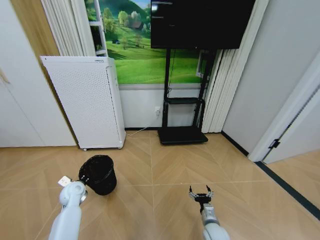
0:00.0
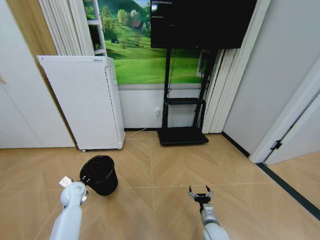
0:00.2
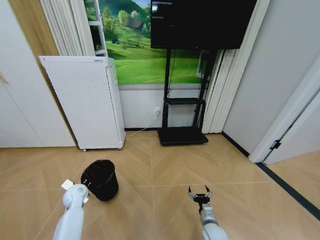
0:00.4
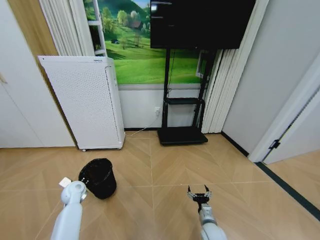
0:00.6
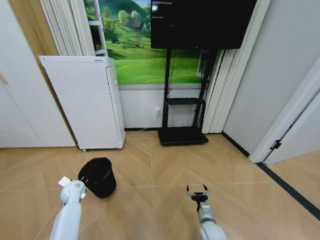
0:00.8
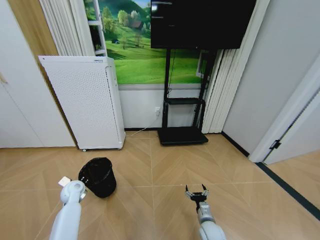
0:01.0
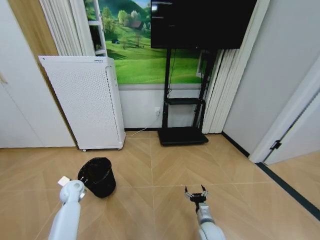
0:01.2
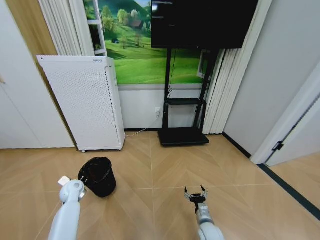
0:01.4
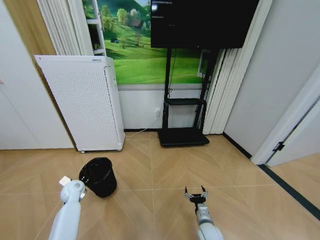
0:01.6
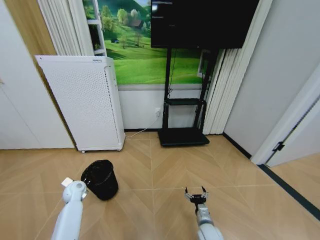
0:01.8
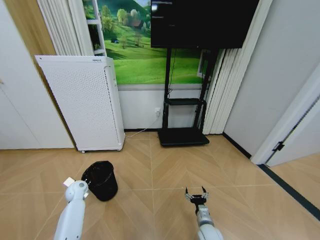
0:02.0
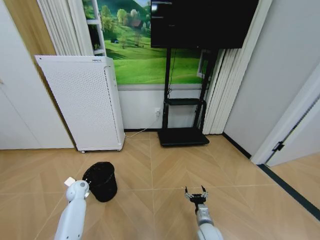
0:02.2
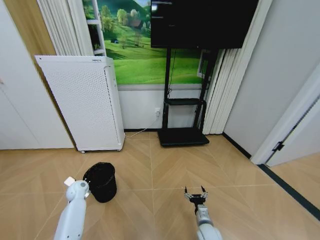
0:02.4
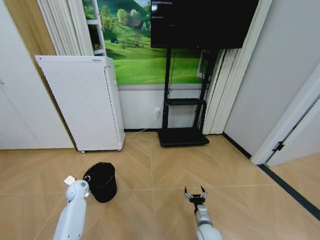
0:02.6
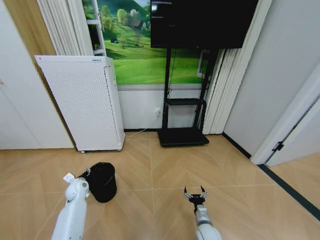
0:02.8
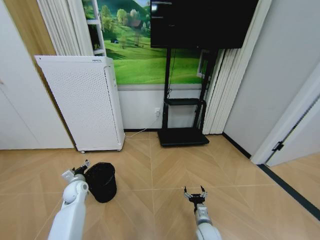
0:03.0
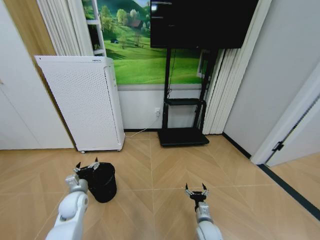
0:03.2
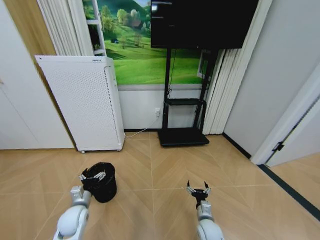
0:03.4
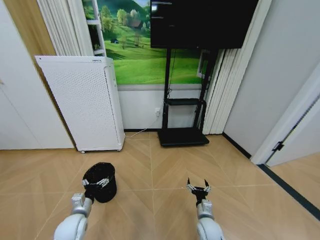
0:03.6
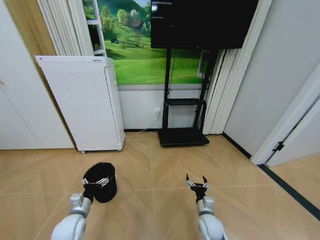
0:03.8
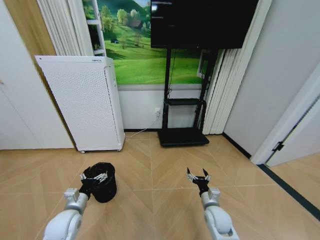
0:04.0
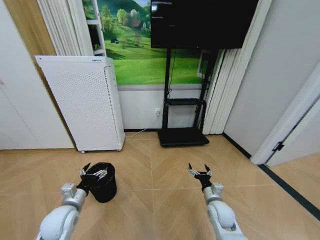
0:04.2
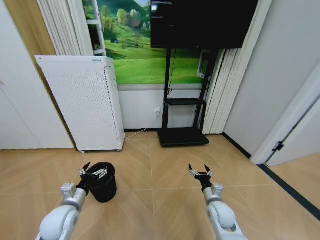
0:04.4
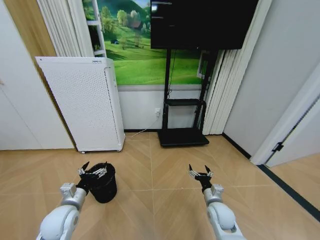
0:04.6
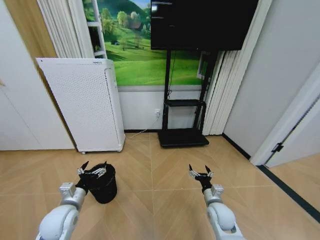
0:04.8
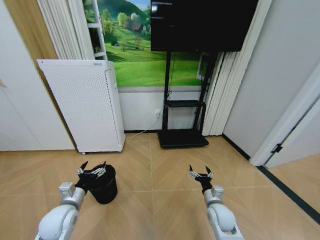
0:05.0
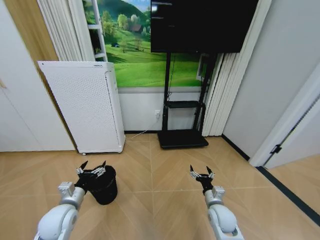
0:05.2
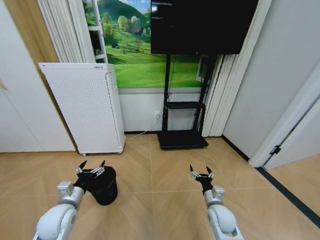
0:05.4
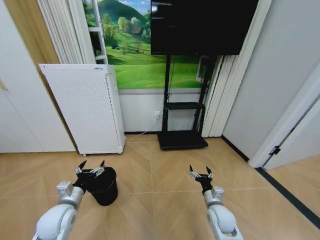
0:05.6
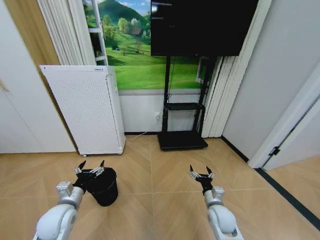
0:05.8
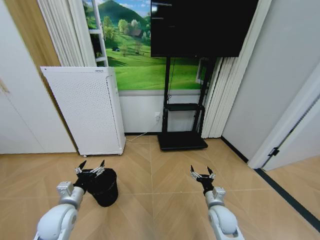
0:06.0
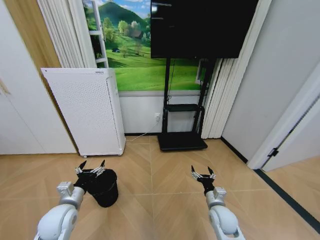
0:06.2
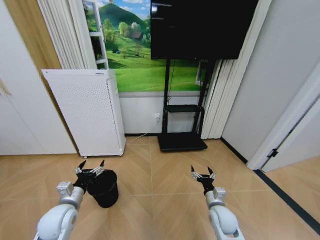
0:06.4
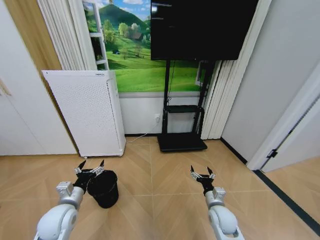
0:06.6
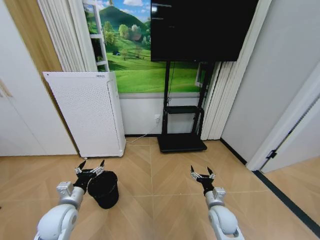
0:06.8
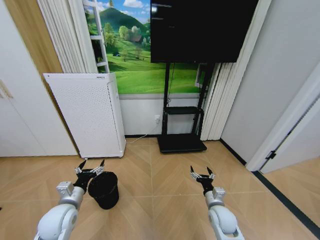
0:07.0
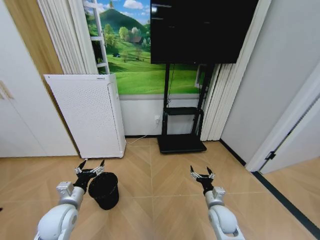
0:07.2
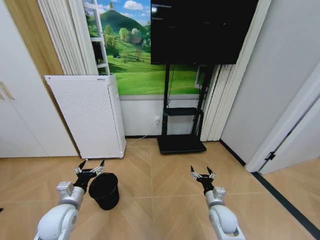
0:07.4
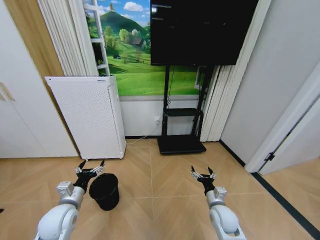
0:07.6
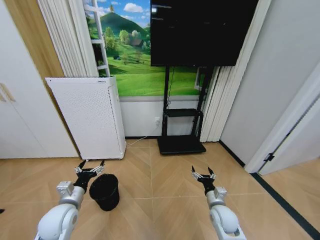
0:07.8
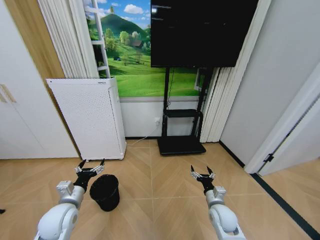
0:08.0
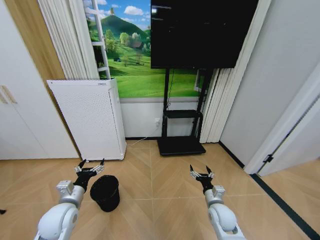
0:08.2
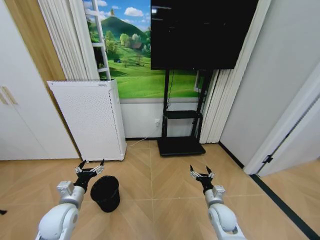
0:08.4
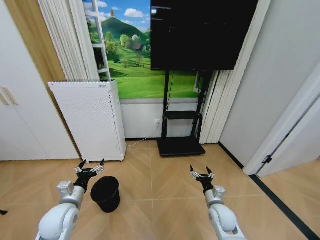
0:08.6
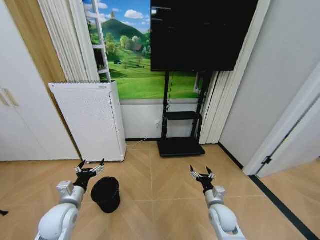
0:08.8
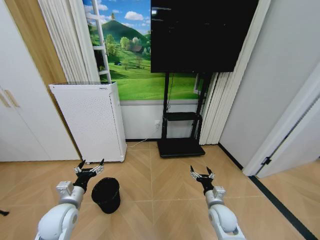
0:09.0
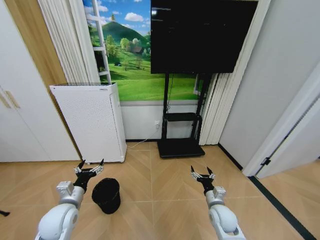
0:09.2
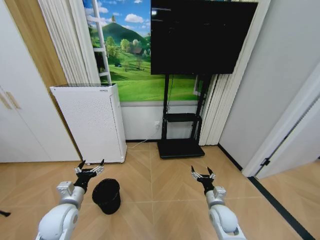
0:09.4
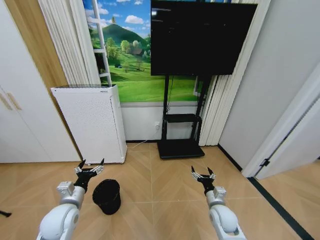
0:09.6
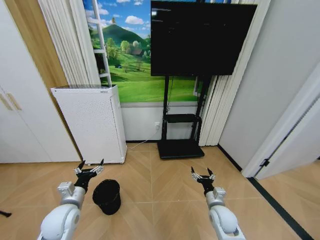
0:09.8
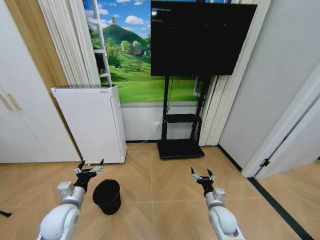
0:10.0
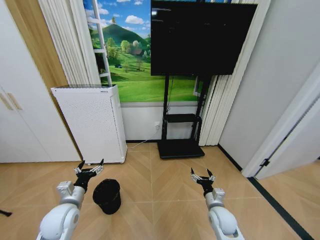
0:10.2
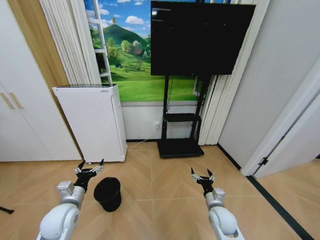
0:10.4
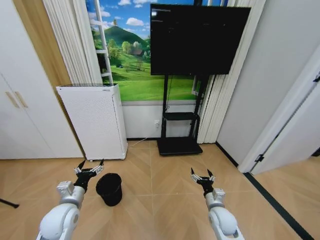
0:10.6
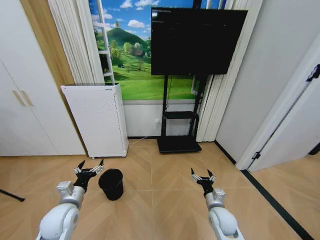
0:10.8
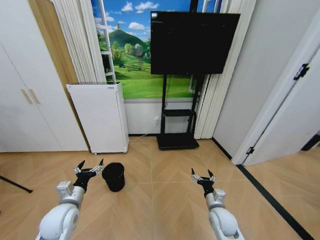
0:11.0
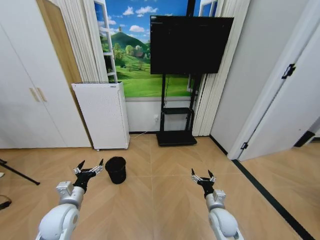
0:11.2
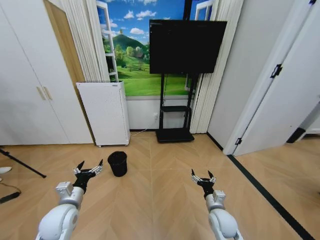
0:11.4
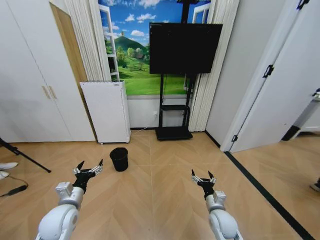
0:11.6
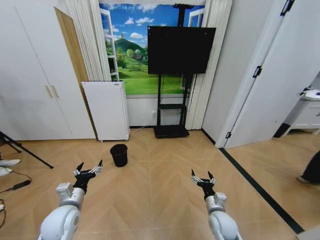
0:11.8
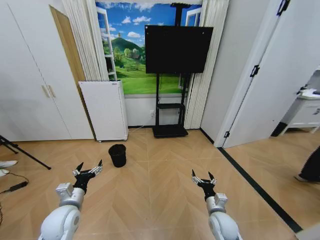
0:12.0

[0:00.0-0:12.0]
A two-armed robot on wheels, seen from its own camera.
Task of the whole recording: Pick up the trash bin and place the garbage on the floor into it.
0:00.0 to 0:01.6: There are only small adjustments of the grippers.
0:01.6 to 0:03.0: The left gripper opens up.
0:03.0 to 0:04.4: The left gripper shifts some 15 cm backward and upward. Meanwhile the right gripper travels upward and forward by roughly 10 cm.
0:04.4 to 0:06.0: The grippers stay close to where they were, moving slightly.
0:06.0 to 0:09.0: Neither gripper changes place.
0:09.0 to 0:10.4: Both grippers stay put.

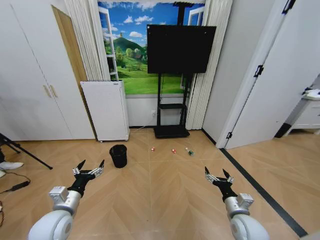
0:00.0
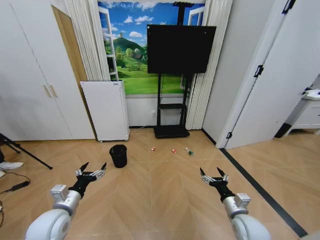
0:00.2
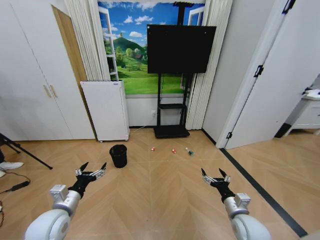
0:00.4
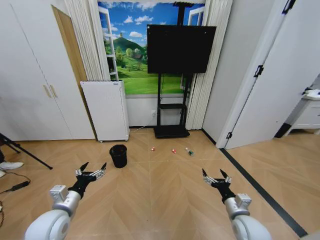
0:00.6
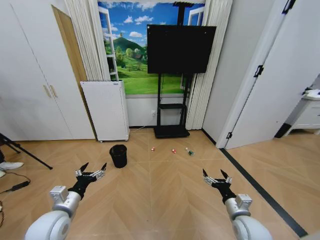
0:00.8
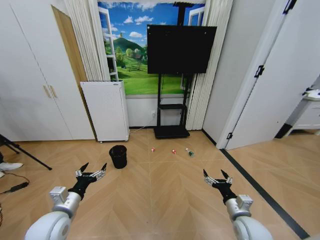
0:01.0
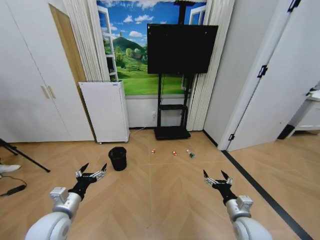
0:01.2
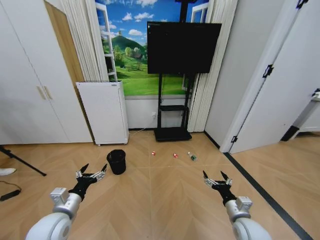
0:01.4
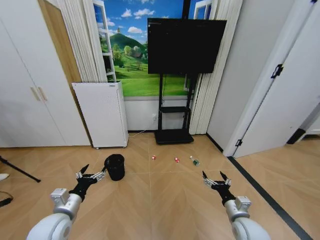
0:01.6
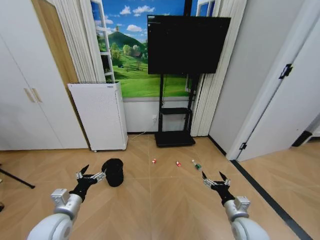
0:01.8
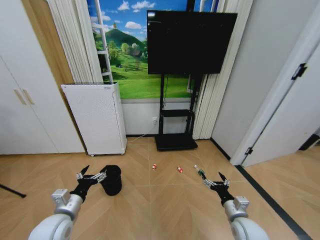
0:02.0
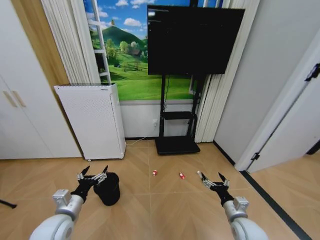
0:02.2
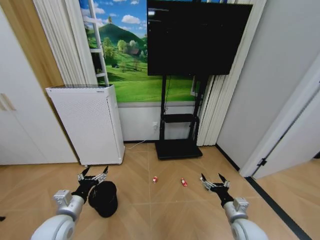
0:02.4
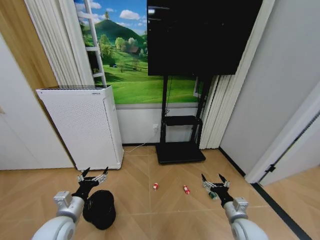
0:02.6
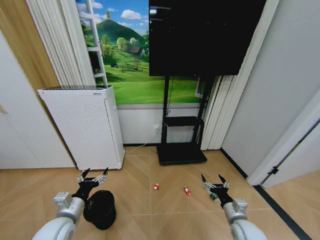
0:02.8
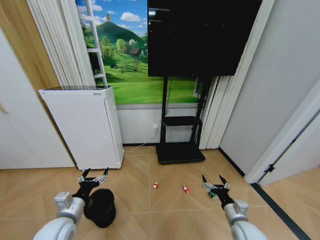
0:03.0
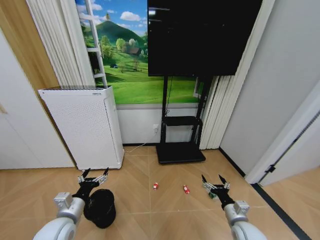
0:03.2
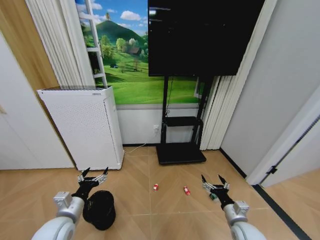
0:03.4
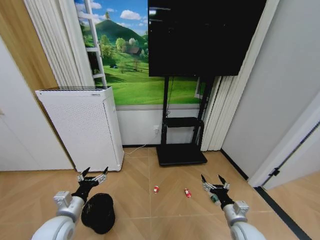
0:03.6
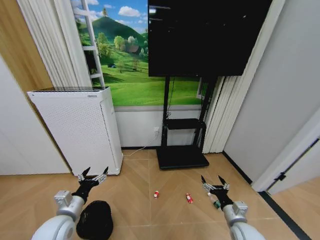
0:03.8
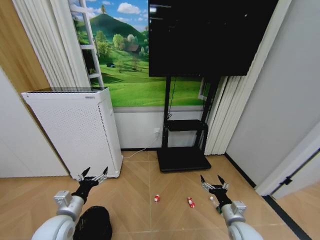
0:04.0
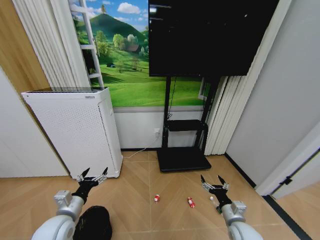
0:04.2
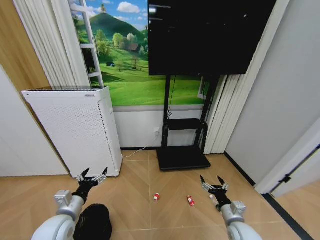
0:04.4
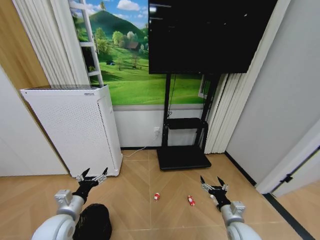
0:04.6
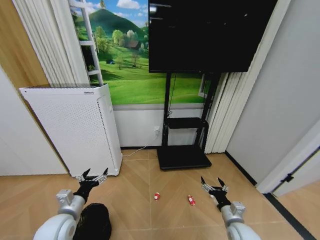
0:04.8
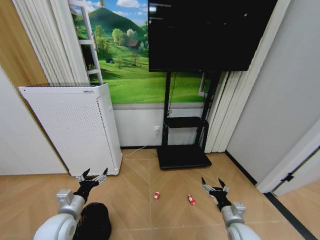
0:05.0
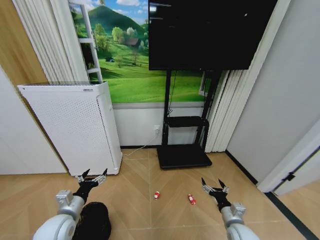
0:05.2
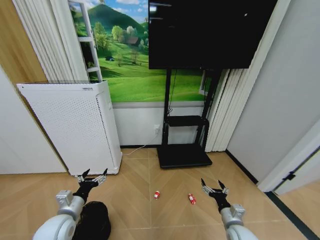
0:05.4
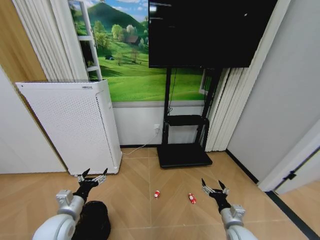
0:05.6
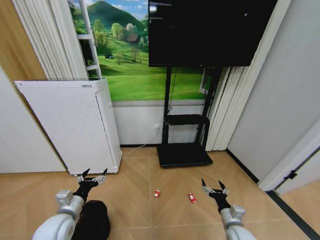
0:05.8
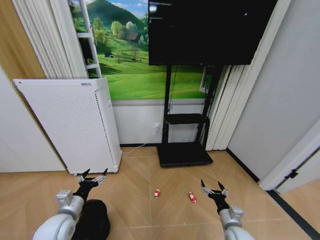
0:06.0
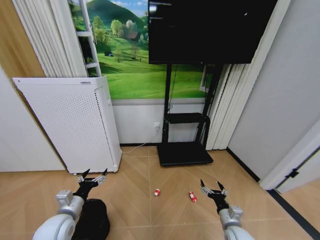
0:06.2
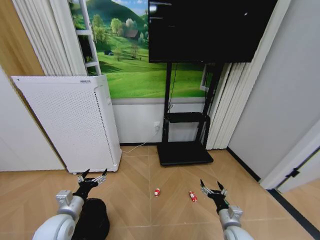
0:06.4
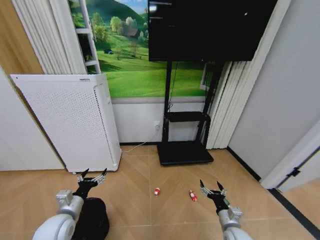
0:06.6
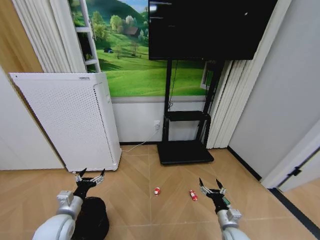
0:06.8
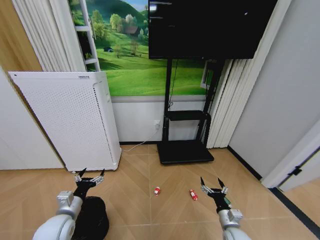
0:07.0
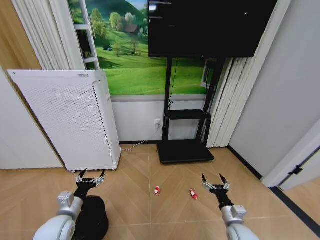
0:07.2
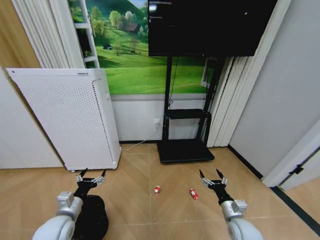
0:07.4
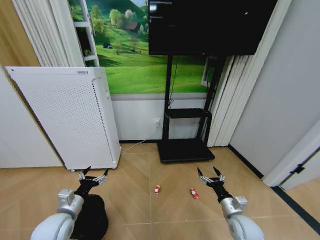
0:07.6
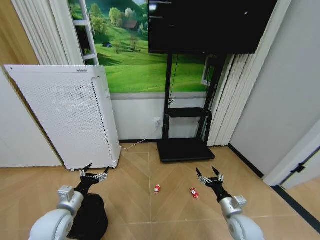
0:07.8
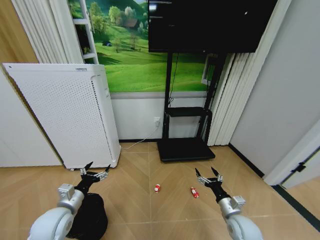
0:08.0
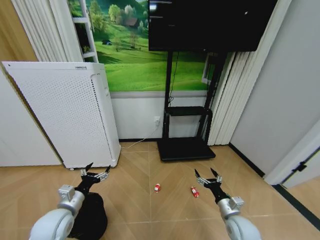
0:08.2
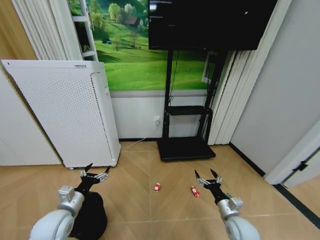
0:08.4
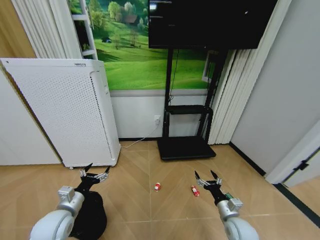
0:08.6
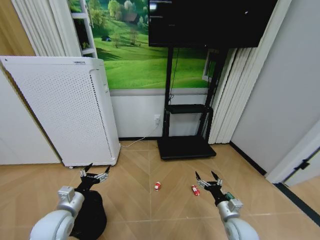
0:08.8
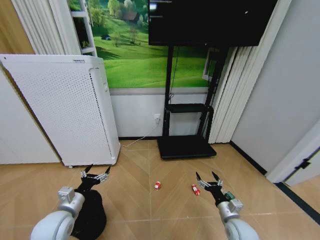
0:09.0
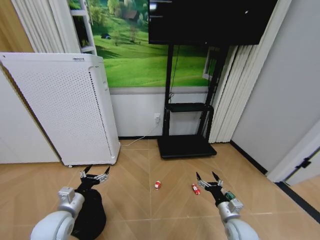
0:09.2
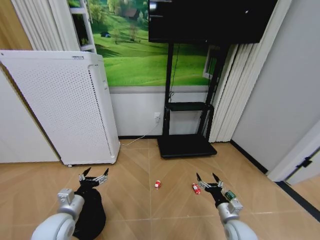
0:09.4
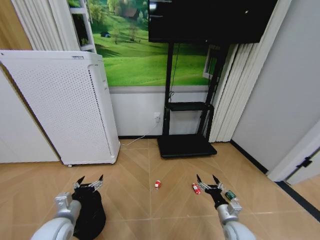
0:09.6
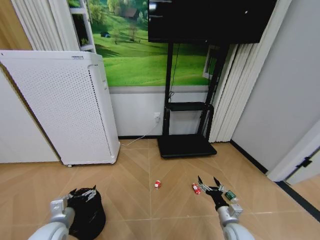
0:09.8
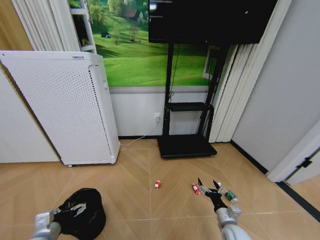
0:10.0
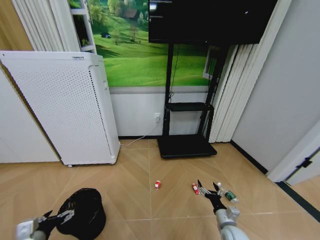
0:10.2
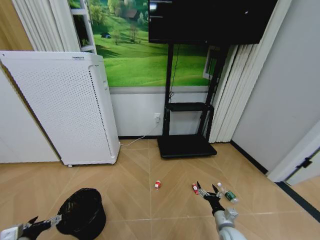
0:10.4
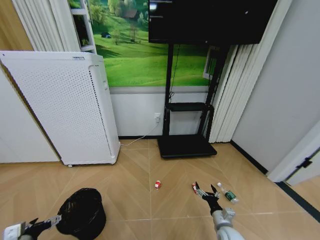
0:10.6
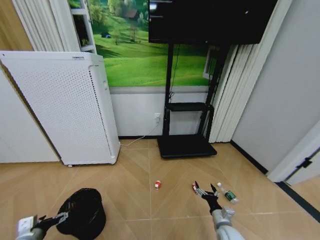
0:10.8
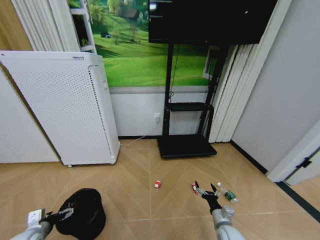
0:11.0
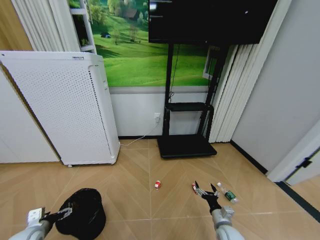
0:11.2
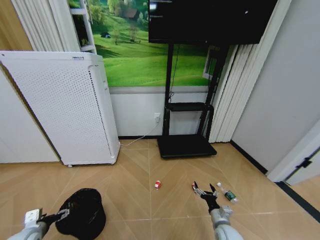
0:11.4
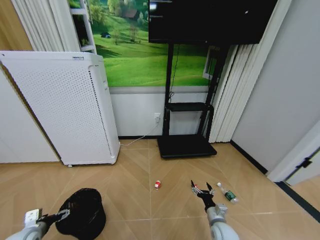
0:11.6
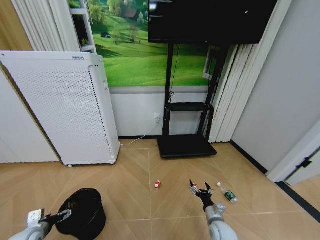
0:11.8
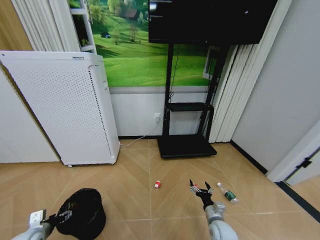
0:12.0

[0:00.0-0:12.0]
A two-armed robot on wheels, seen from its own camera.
Task of the whole recording: Pick up the trash bin and place the garbage on the floor into it.
0:04.4 to 0:09.0: The grippers stay close to where they were, moving slightly.
0:09.0 to 0:10.4: The left gripper goes about 15 cm to the left and backward; the right gripper shifts roughly 5 cm downward.
0:10.4 to 0:12.0: The left gripper moves forward, approximately 5 cm.
